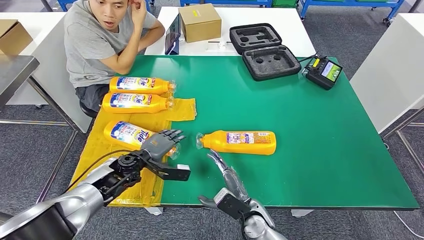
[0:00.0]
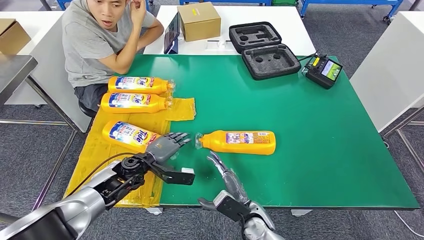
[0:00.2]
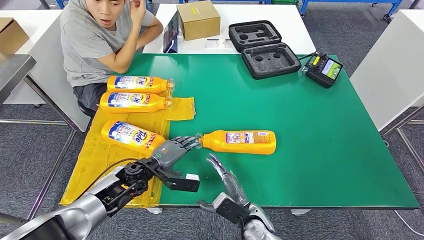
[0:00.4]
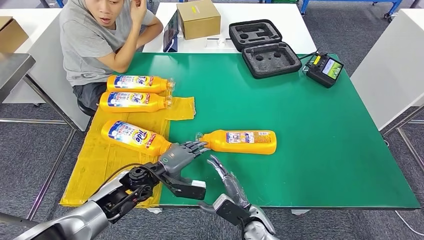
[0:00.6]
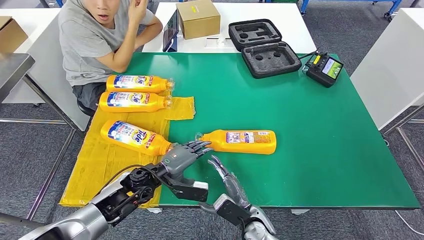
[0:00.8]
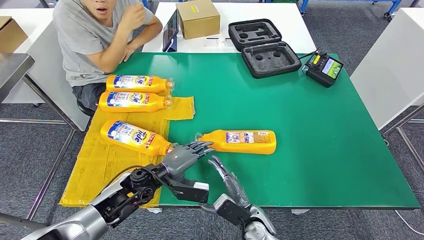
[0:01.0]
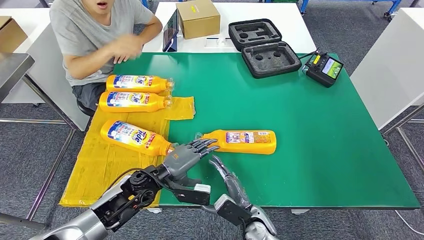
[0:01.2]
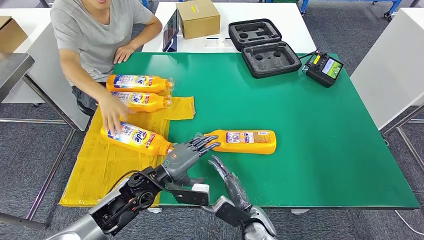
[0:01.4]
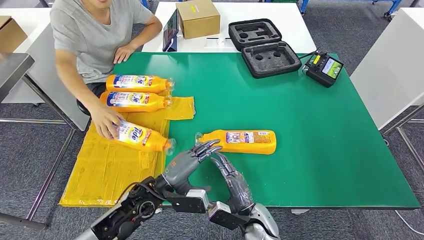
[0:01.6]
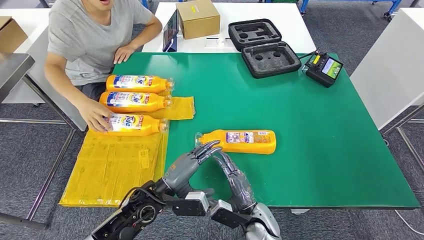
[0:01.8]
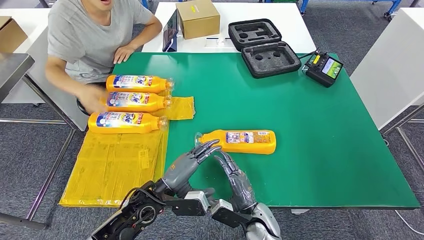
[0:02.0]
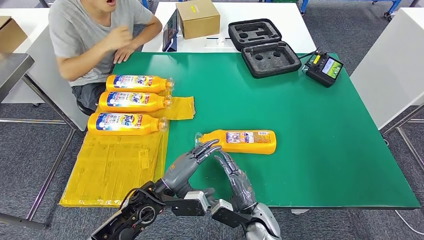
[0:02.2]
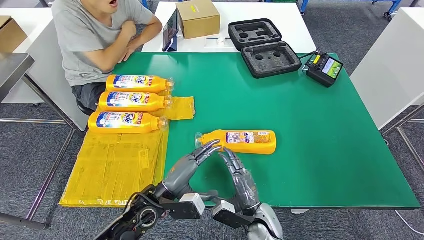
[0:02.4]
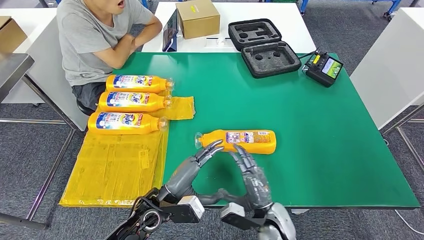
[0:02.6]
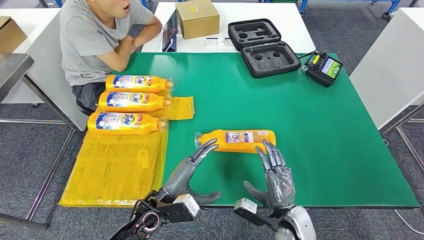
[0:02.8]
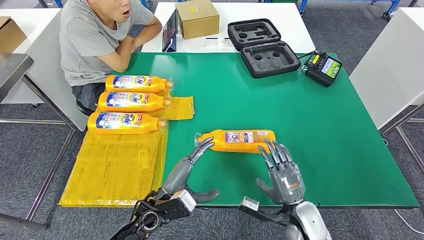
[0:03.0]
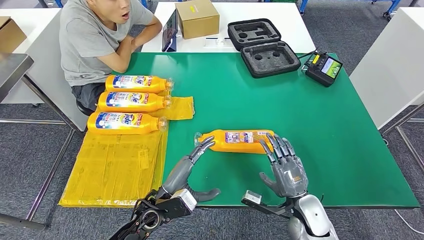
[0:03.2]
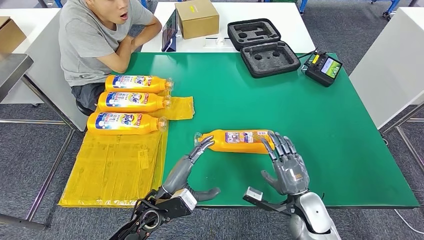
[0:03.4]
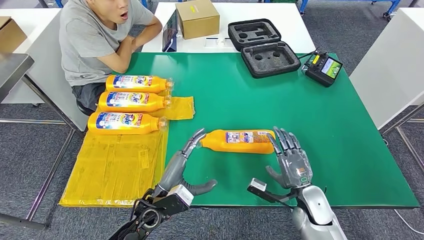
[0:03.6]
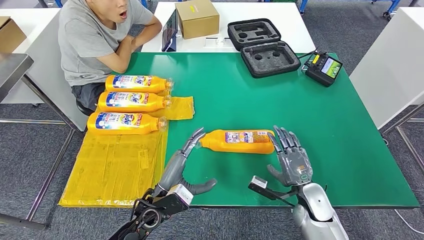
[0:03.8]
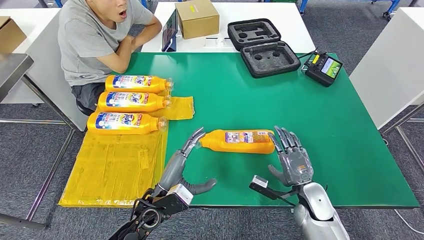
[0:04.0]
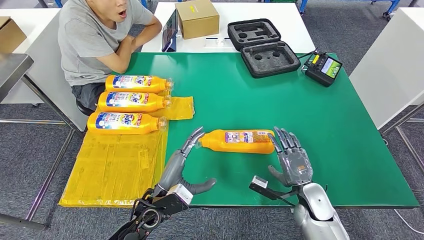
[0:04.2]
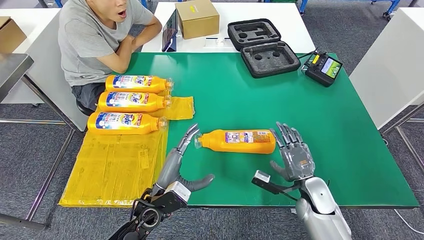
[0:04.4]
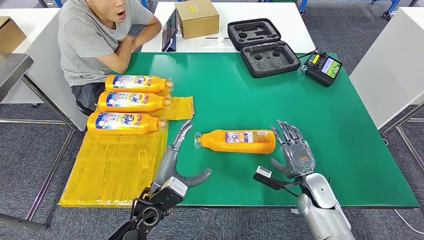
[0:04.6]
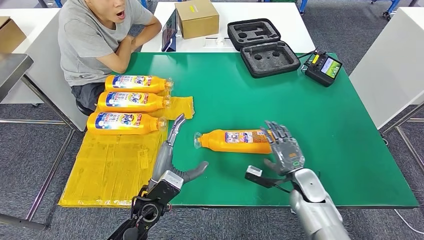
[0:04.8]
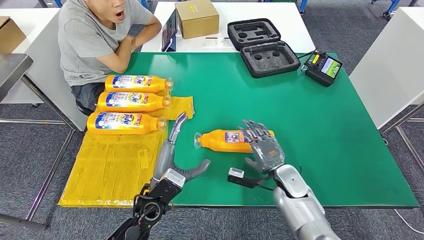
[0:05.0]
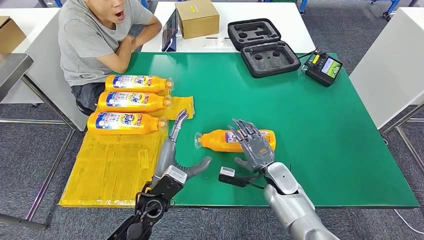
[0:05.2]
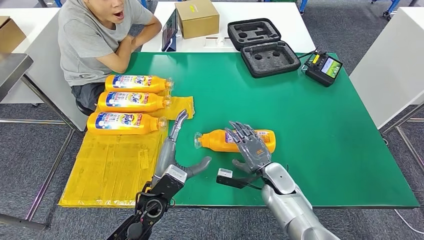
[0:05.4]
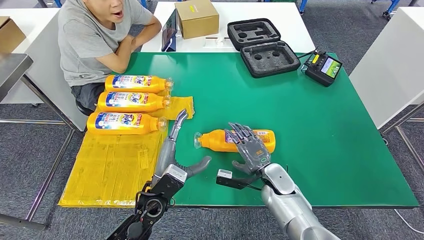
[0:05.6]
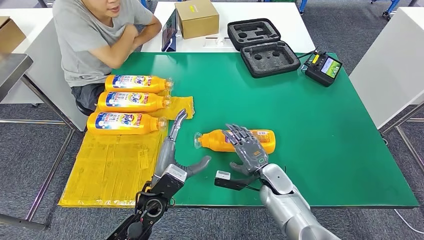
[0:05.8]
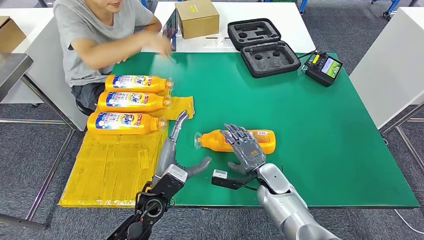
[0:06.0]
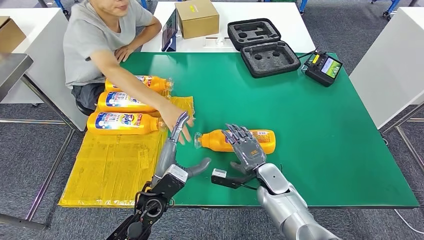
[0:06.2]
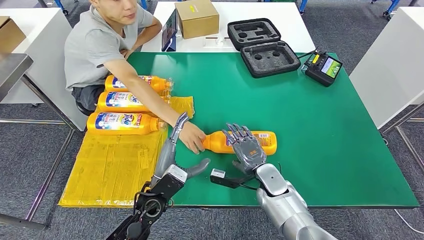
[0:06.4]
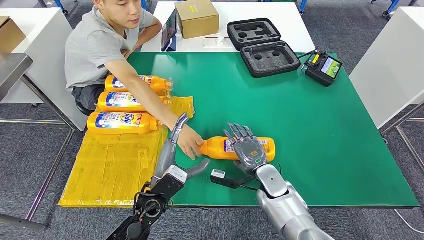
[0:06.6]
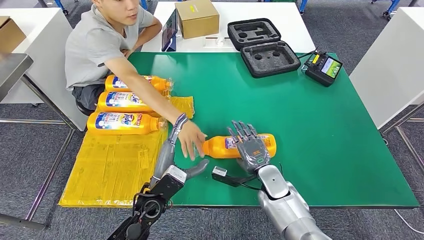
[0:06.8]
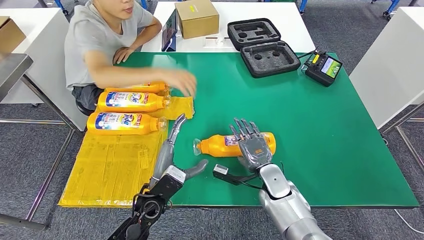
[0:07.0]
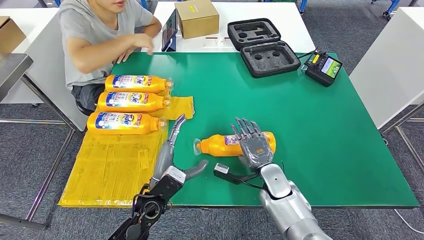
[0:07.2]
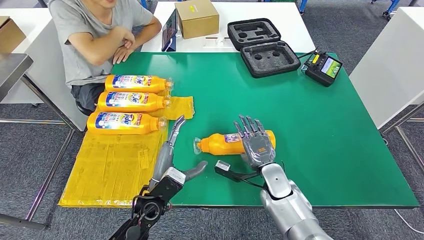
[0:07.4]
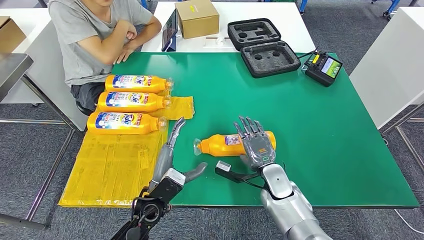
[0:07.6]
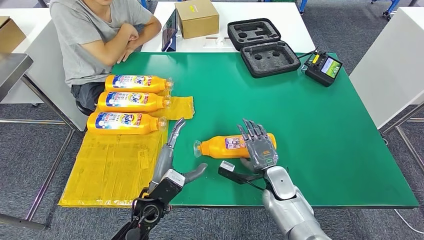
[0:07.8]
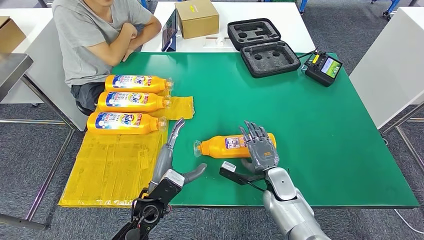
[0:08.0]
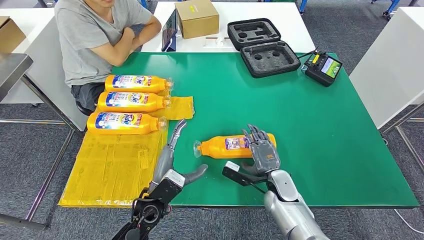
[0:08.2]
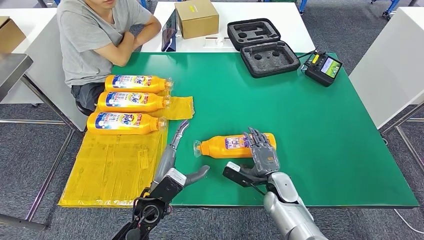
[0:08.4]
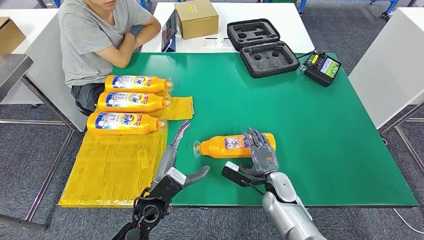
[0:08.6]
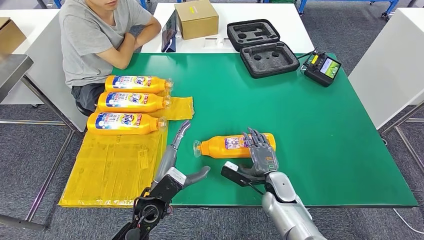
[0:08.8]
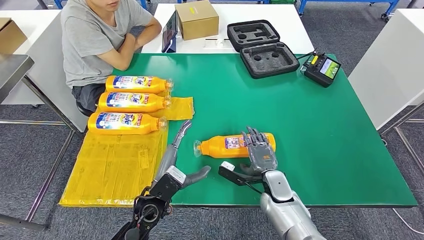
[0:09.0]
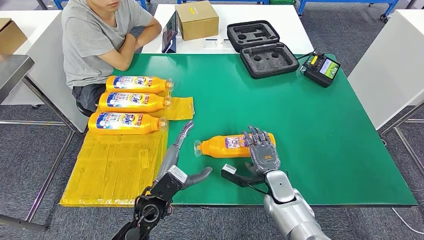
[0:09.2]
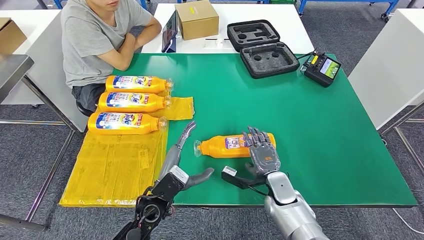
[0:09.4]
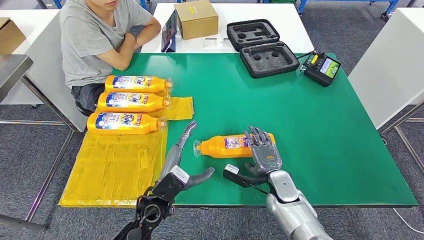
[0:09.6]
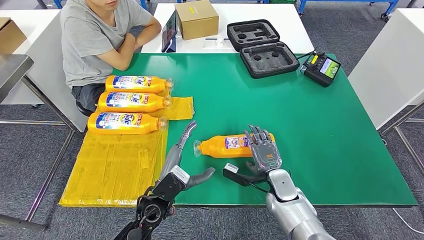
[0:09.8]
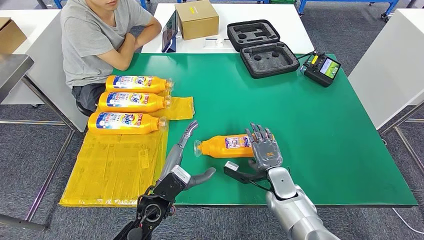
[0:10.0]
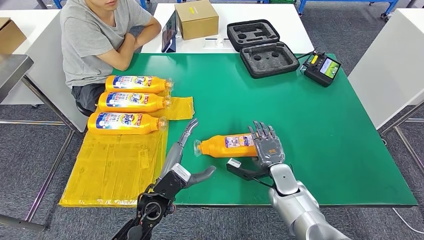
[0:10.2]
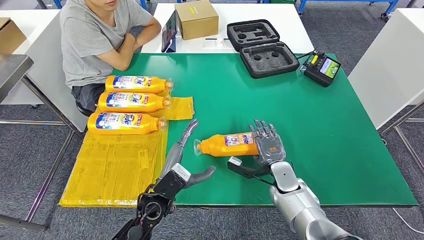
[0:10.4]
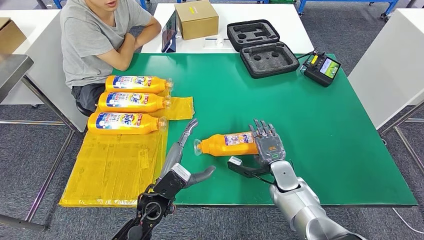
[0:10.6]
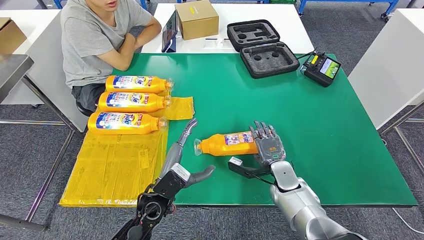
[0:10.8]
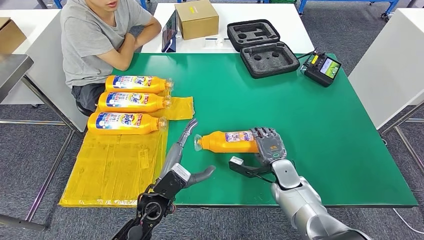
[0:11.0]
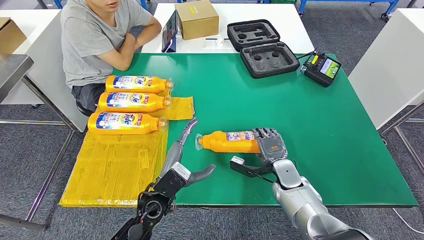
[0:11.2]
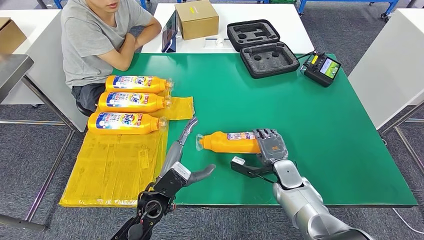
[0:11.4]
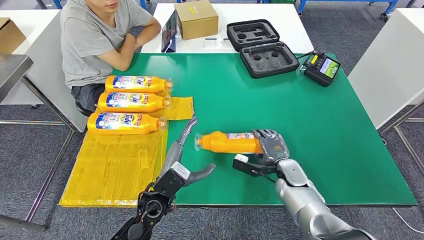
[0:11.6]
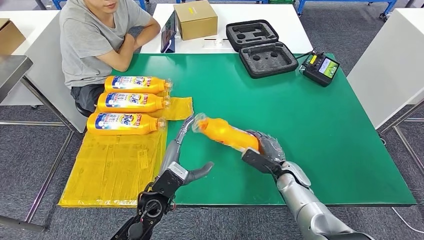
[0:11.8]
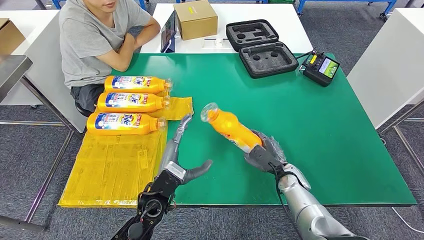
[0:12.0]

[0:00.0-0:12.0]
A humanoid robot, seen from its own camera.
0:01.6 to 0:03.0: The right hand travels to the right by about 10 cm.
0:03.0 to 0:04.4: The right hand moves forward, roughly 5 cm.
0:04.4 to 0:06.0: The right hand heads to the left, covering approximately 15 cm.
0:06.0 to 0:07.6: The hands make only small movements.
0:09.0 to 0:10.4: The hands stay close to where they were, moving slightly.

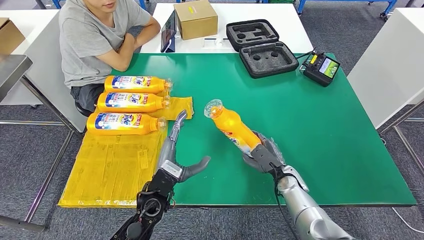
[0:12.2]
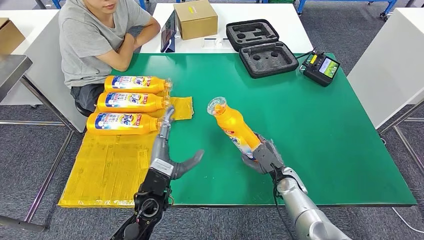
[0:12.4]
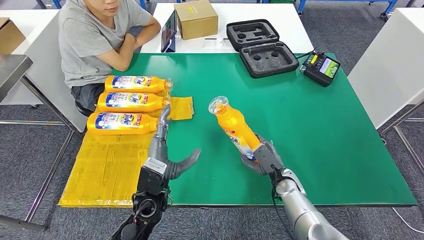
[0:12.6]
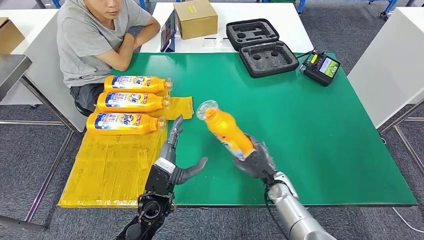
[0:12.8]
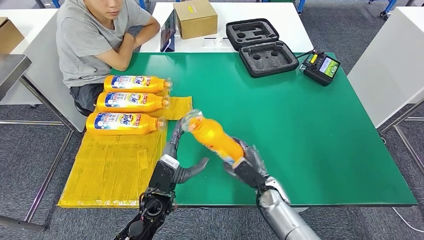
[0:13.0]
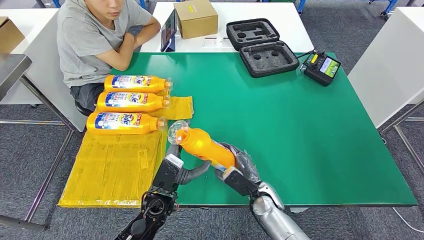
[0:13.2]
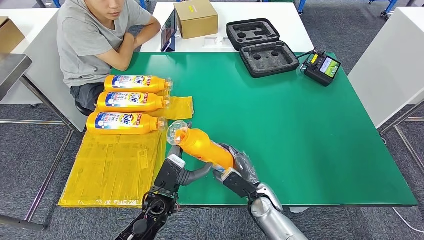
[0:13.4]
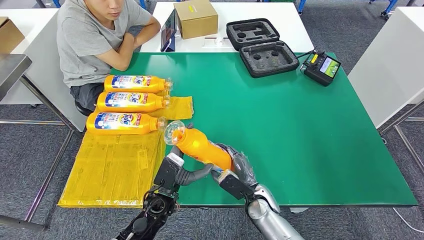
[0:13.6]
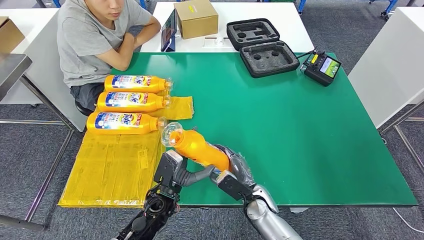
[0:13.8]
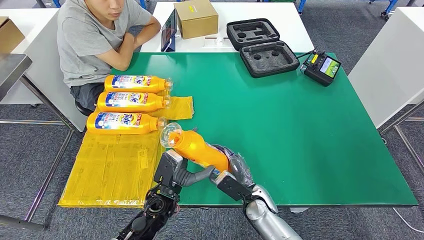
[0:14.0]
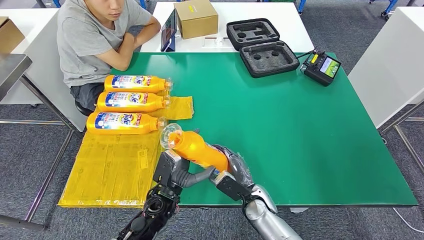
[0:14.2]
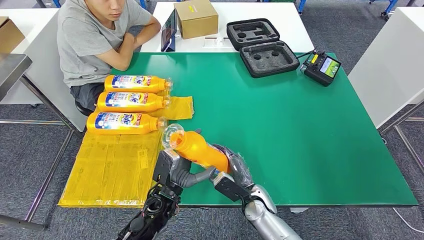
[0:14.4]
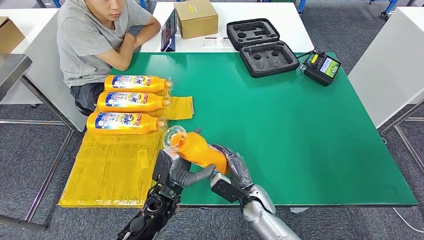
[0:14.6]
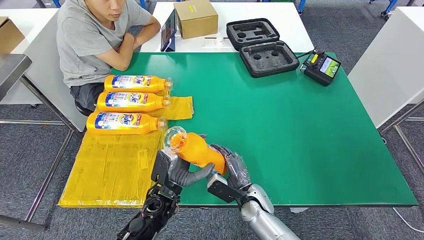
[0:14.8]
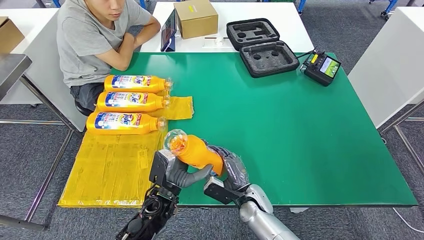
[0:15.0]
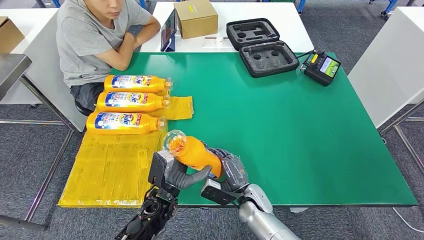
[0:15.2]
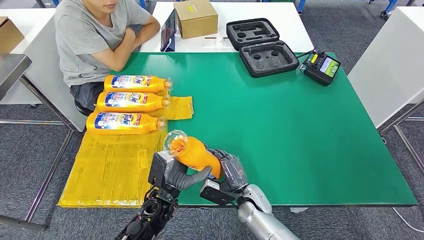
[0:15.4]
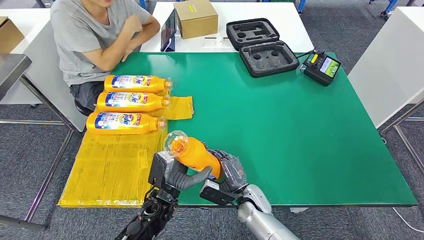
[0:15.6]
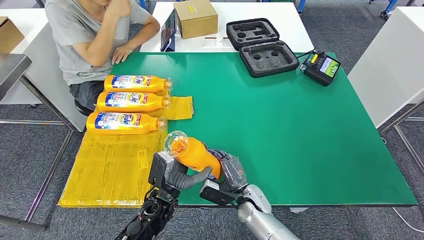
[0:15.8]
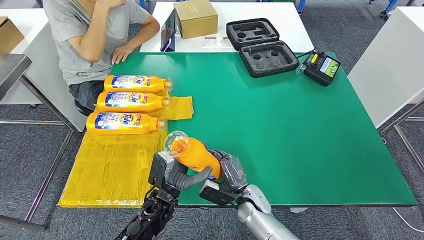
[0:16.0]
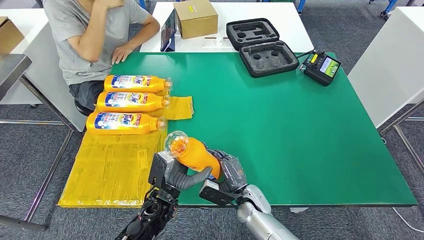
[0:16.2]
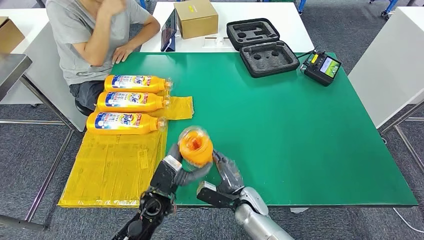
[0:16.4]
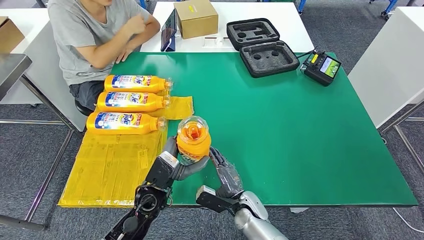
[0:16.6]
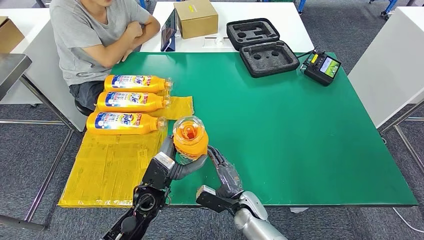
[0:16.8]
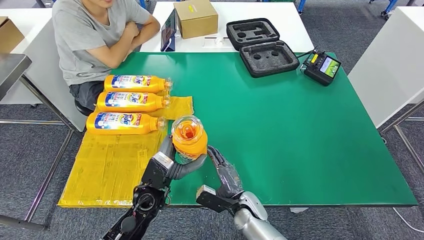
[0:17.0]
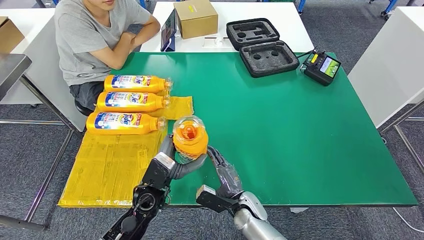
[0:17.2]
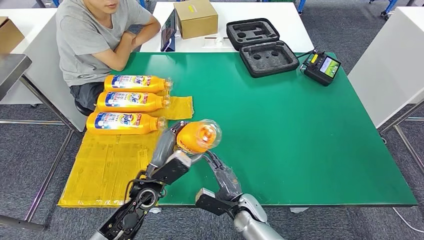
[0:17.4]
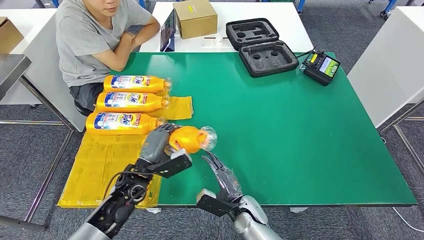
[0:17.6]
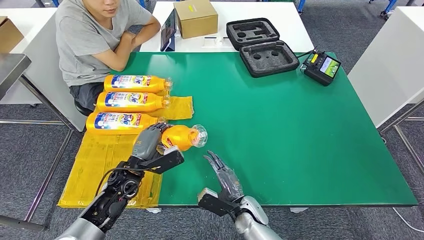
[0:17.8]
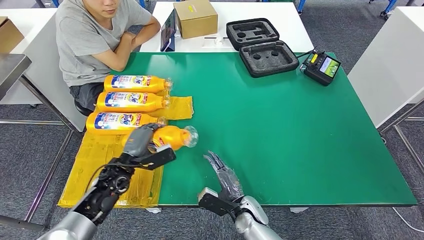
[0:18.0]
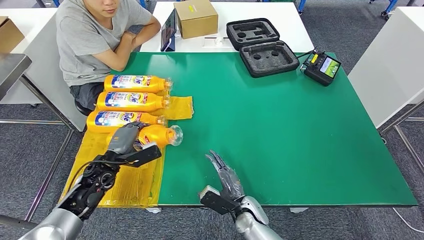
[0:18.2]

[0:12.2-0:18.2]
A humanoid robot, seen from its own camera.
Step, 0:12.2 to 0:14.8: Pick up the fast-moving consumer goods bottle from the table.
0:12.2 to 0:13.8: The right hand moves to the left, some 10 cm.
0:13.8 to 0:15.2: The hands move only a little.
0:16.6 to 0:18.2: The left hand travels to the left and forward by roughly 15 cm.
